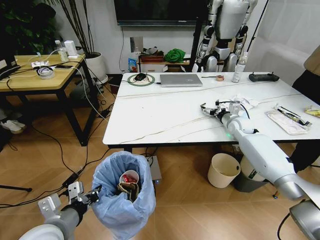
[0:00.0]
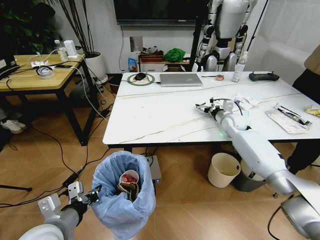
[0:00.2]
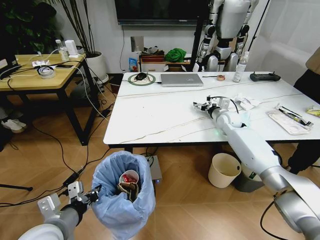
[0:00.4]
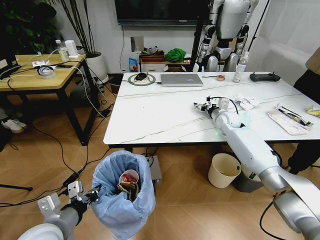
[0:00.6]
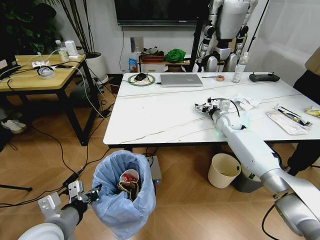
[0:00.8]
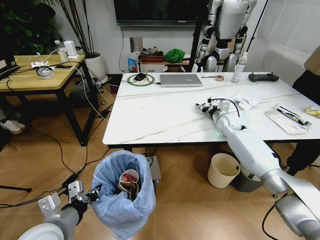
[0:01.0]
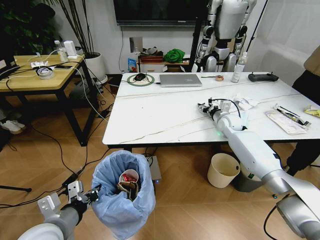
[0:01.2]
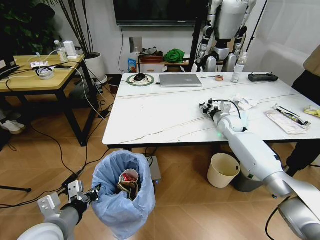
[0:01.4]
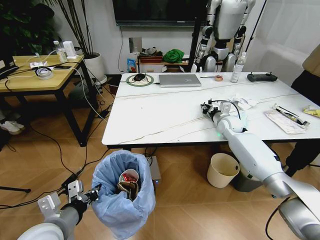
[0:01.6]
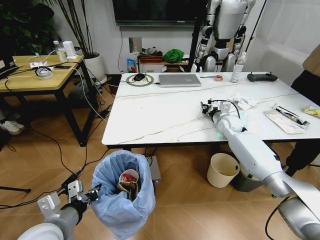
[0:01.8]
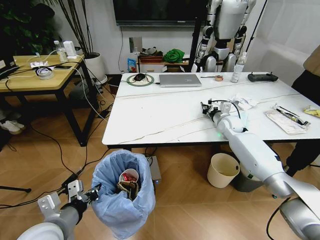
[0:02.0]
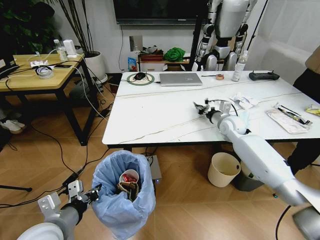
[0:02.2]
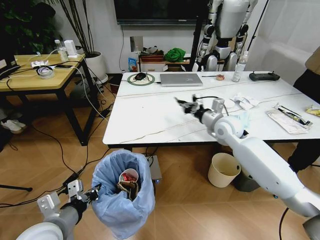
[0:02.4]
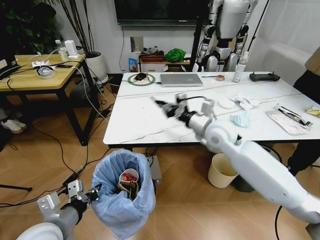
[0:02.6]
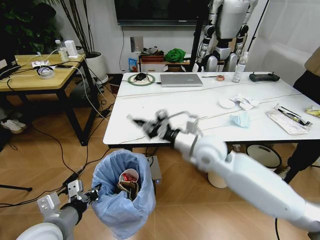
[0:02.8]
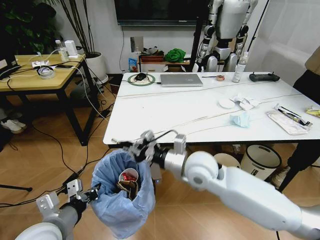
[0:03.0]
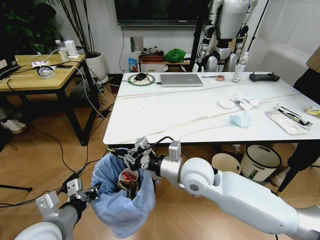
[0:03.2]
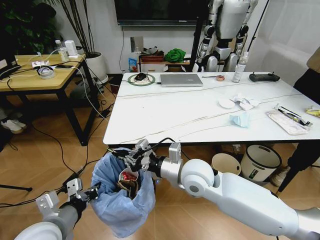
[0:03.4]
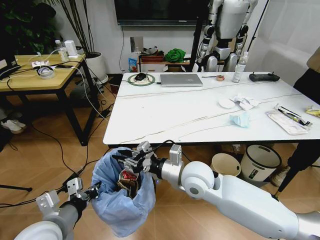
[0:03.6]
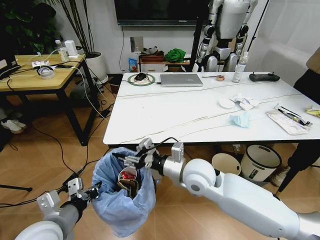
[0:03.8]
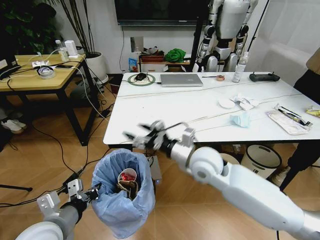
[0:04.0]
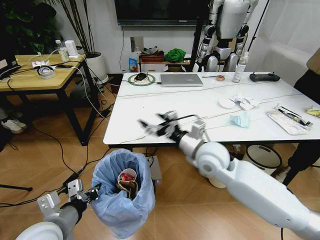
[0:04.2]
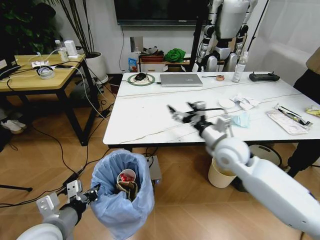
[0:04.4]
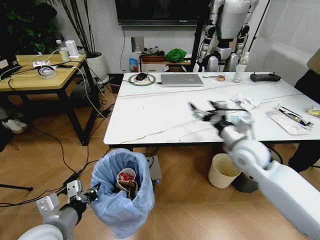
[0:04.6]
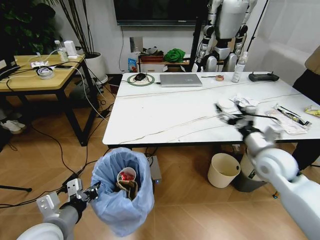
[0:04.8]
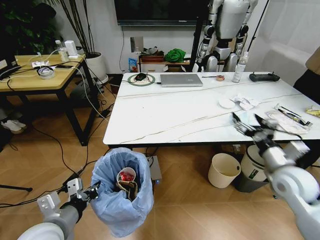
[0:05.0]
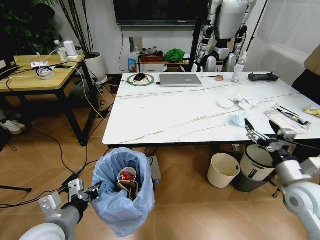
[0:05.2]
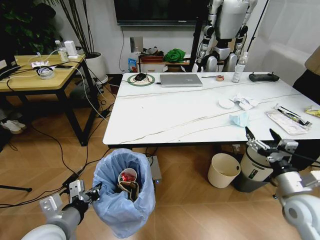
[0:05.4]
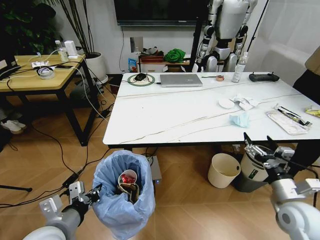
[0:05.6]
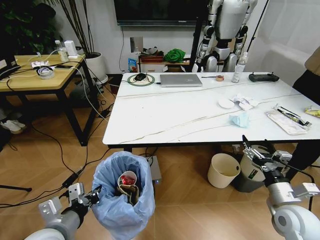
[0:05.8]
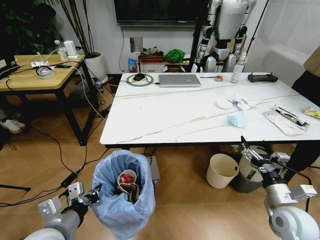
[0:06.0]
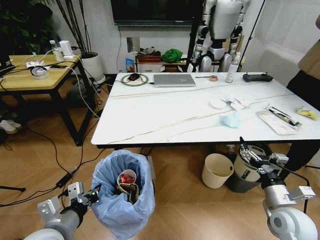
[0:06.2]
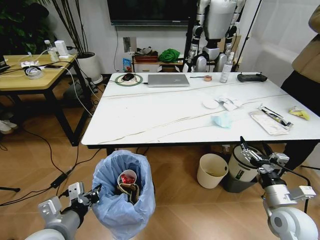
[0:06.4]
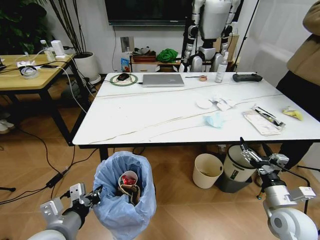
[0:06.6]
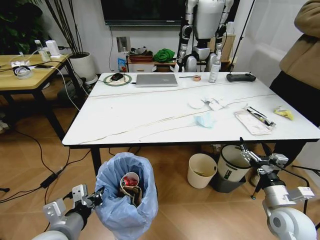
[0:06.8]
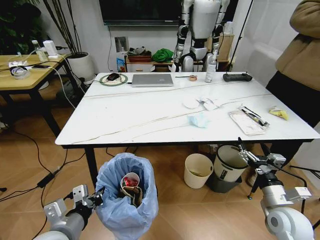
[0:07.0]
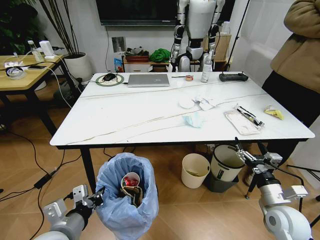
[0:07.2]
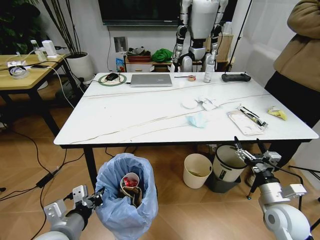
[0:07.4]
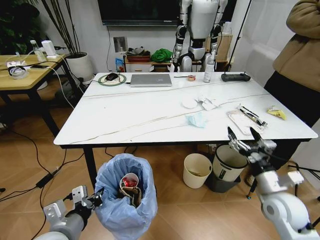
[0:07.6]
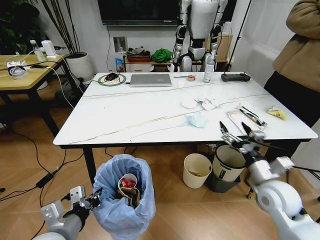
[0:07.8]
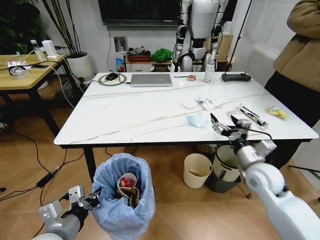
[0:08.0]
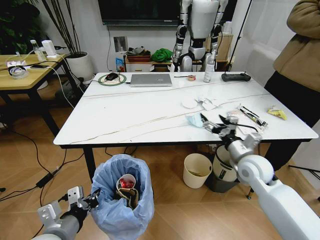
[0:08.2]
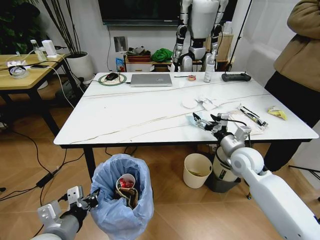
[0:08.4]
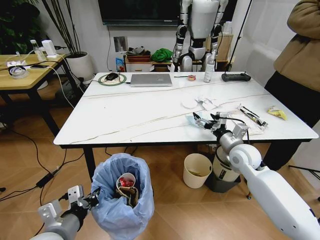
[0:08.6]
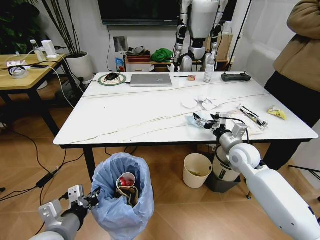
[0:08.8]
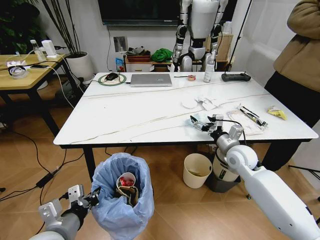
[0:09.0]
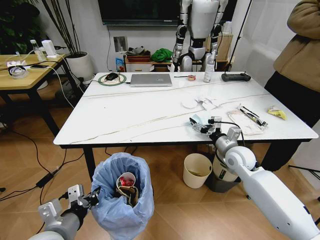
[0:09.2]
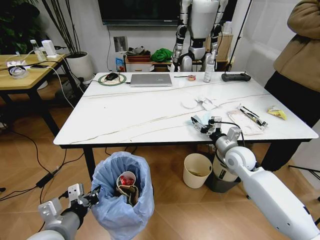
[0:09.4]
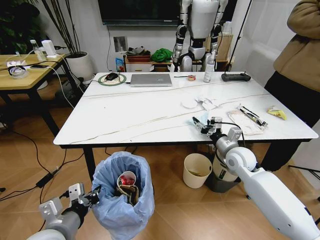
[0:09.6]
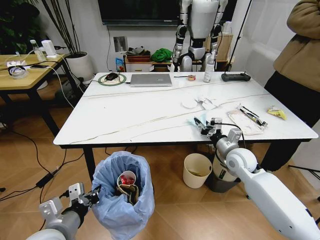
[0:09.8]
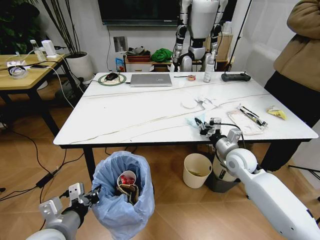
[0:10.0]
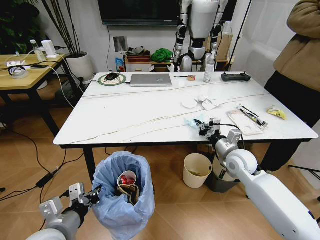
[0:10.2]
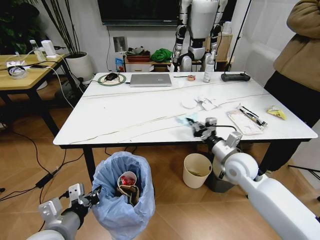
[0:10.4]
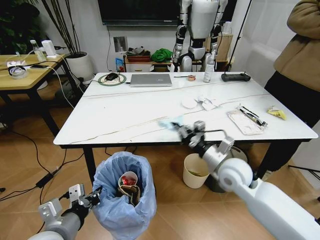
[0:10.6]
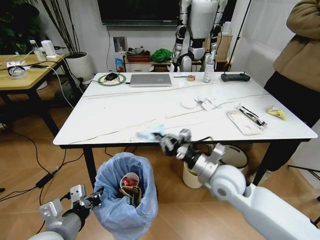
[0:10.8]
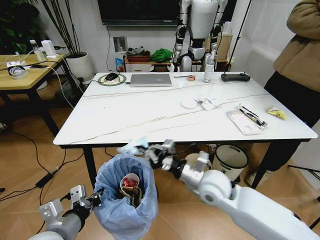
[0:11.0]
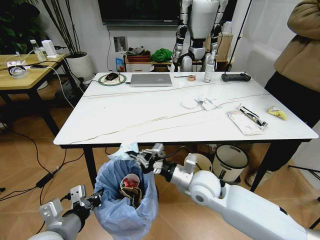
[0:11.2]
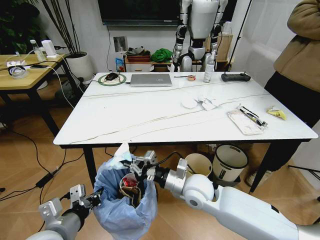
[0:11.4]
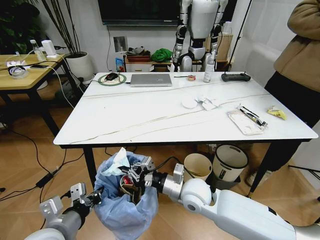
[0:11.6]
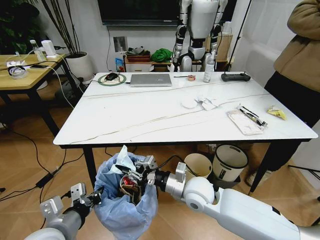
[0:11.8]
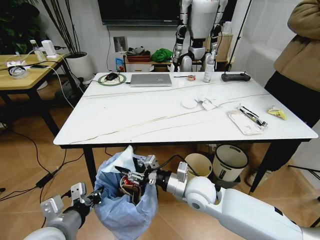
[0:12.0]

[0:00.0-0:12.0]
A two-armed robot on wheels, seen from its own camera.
Task of the whole recording: Pick up the trash bin and place the trash from the table into it.
0:00.0 to 0:01.6: The right gripper closes its fingers.
0:01.6 to 0:03.0: The right gripper heads backward and to the left, covering about 30 cm.
0:03.0 to 0:04.4: The right gripper travels to the right by some 10 cm, and opens.
0:04.4 to 0:06.0: The right gripper heads to the right, backward and downward, covering some 25 cm.
0:07.6 to 0:09.0: The right gripper shifts roughly 15 cm forward and to the left.
0:09.0 to 0:10.4: The right gripper closes.
0:10.4 to 0:12.0: The right gripper shifts some 15 cm to the left and backward, and opens.

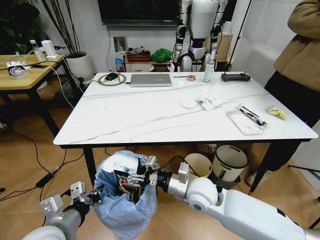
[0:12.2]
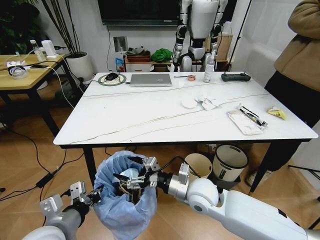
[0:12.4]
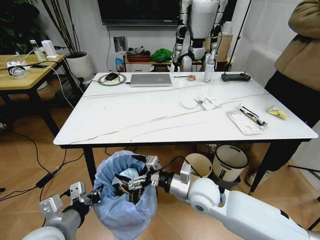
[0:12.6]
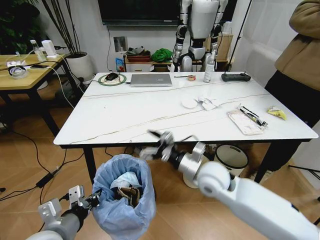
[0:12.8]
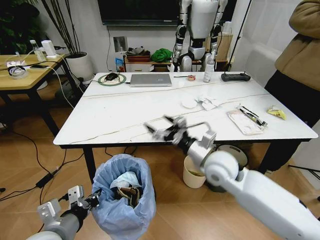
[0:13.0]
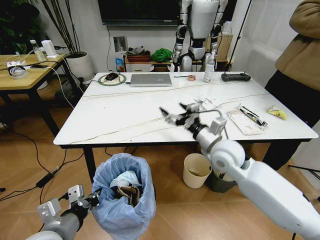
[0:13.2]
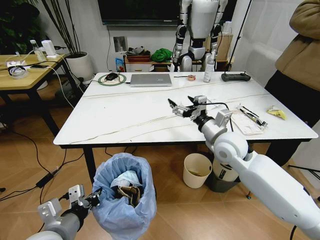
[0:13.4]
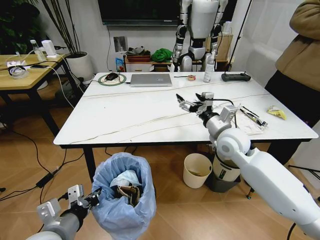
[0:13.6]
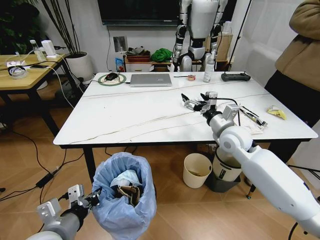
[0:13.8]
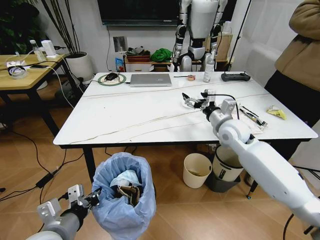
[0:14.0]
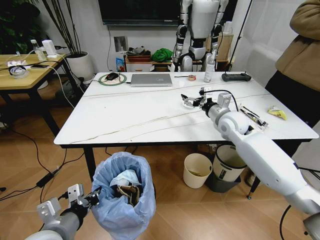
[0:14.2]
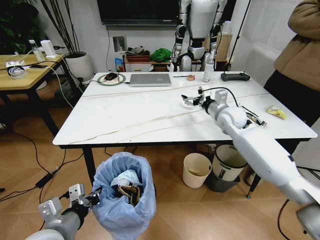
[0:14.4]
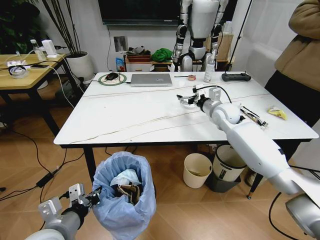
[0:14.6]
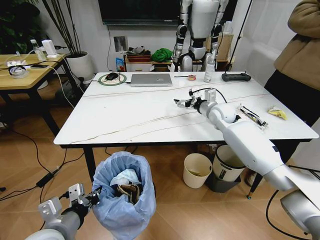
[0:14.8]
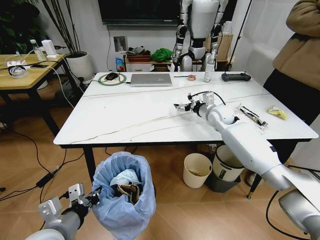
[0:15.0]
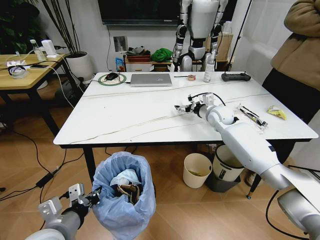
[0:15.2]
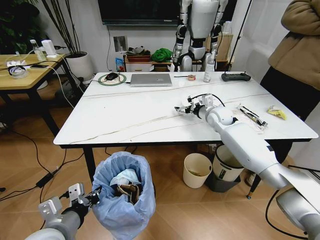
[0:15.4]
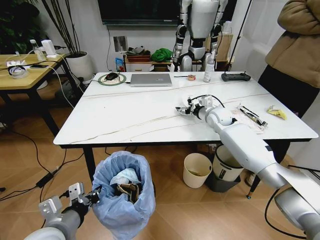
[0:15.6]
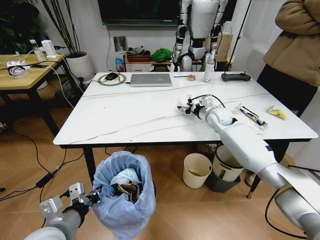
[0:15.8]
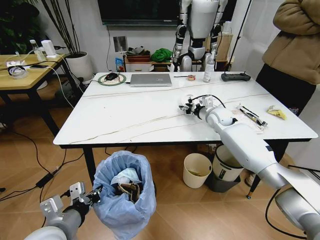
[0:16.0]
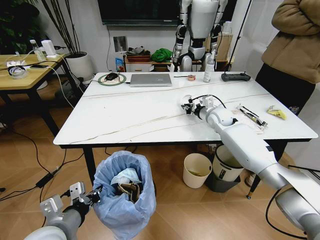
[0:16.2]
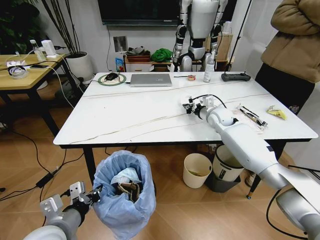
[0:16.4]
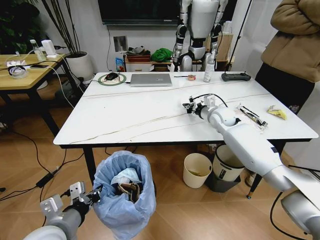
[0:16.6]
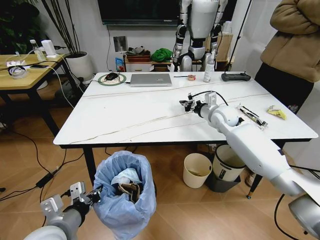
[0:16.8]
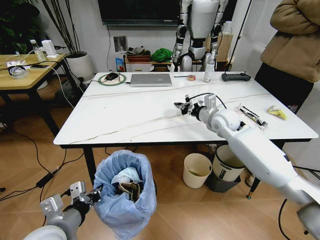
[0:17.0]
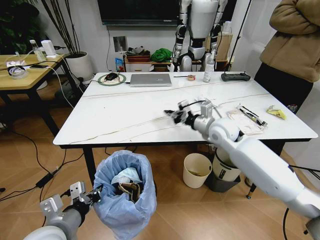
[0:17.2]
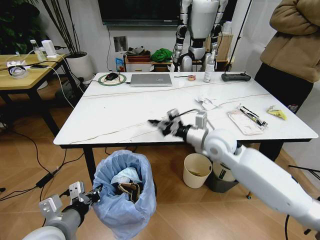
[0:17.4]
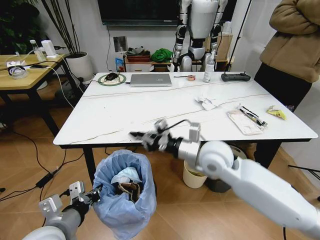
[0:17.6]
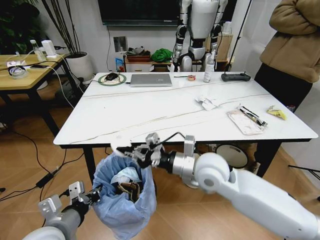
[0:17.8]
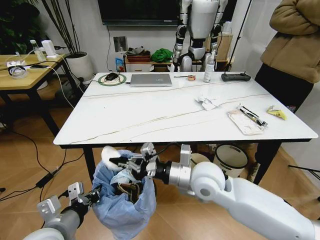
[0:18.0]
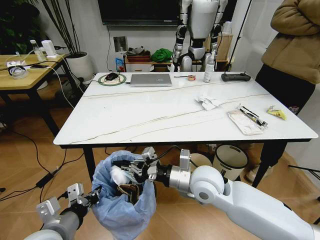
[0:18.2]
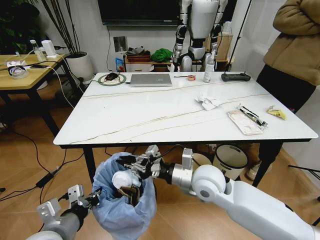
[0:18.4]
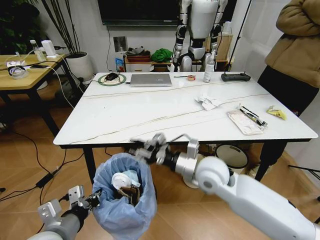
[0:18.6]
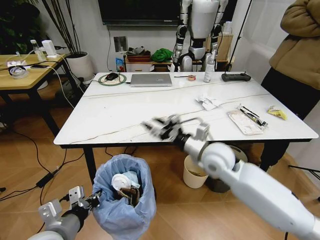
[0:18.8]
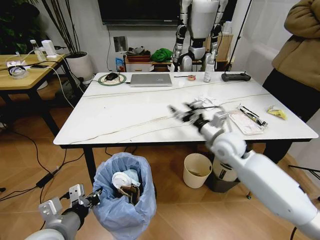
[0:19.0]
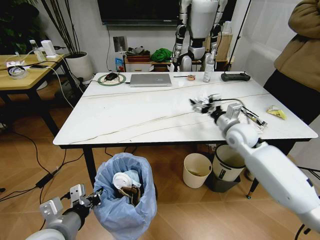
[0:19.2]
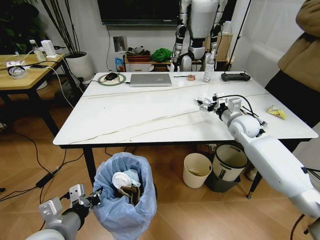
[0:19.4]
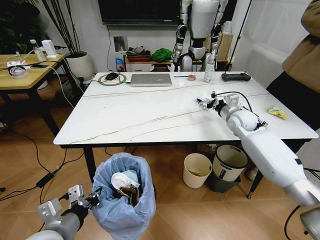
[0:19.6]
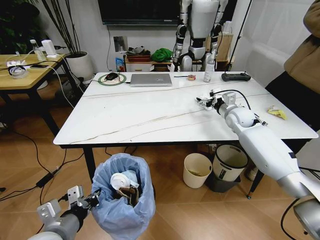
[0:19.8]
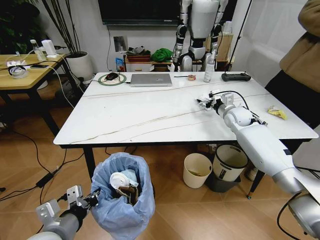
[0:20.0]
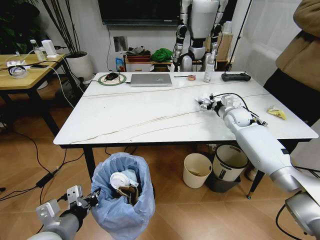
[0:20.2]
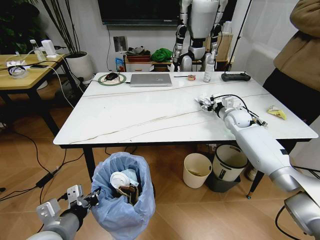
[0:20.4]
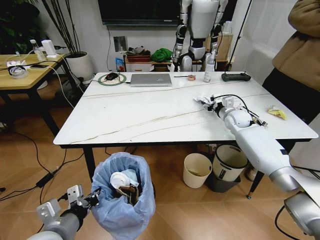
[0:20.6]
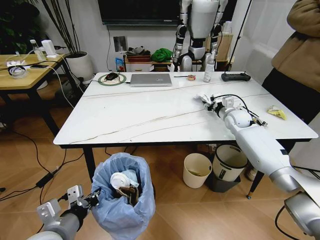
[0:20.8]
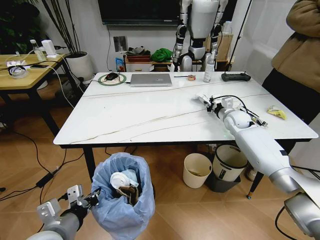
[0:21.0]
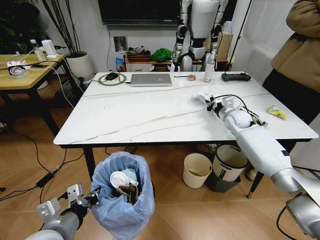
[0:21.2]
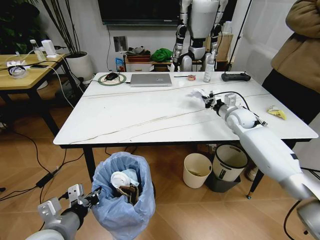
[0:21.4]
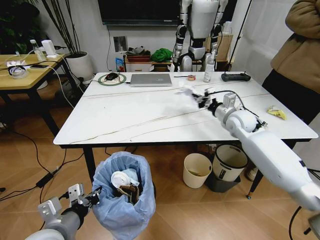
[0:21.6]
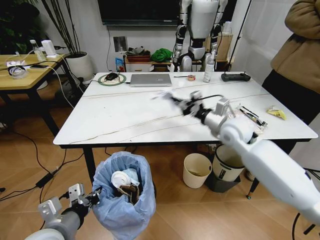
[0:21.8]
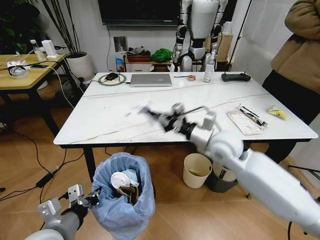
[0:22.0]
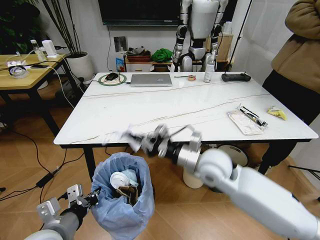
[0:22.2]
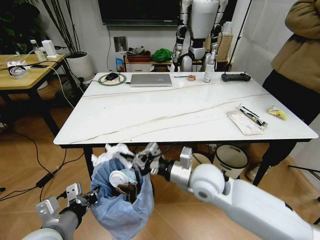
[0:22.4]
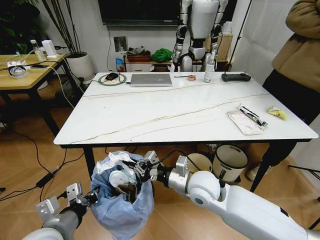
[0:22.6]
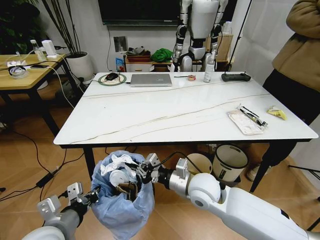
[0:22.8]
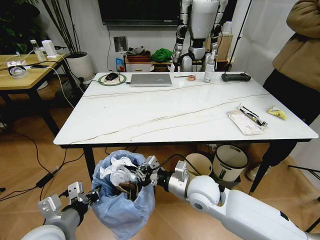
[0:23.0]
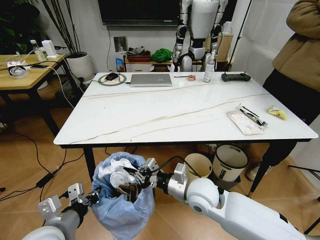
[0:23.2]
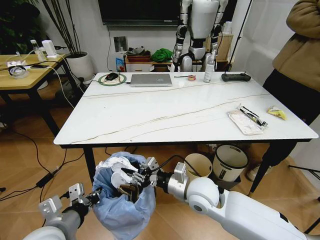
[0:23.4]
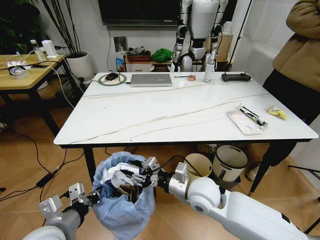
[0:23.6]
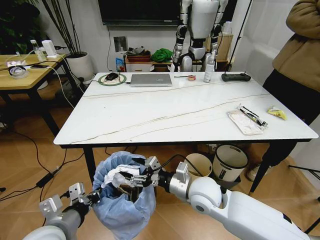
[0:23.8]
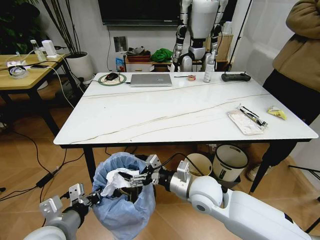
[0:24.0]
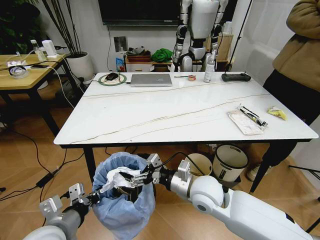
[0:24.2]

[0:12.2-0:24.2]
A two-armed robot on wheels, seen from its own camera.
Task of the whole recording: Pick up the trash bin and place the trash from the table into it.
0:12.2 to 0:13.8: The right gripper travels forward, to the right and upward by approximately 20 cm, and opens up.
0:13.8 to 0:15.2: The right gripper travels forward by roughly 15 cm.
0:15.2 to 0:16.6: The right gripper closes up.
0:16.6 to 0:18.2: The right gripper moves backward and to the left, approximately 30 cm.
0:18.2 to 0:19.8: The right gripper shifts roughly 35 cm forward and to the right, and opens.
0:19.8 to 0:21.2: The right gripper closes up.
0:21.2 to 0:22.6: The right gripper heads backward and to the left, covering some 35 cm.
0:22.6 to 0:24.2: The right gripper opens its fingers.
